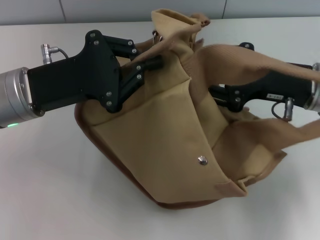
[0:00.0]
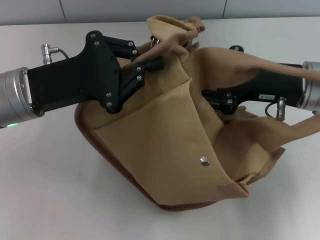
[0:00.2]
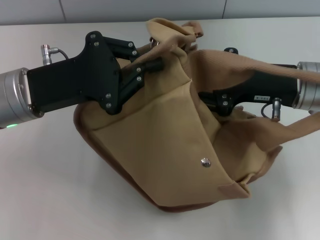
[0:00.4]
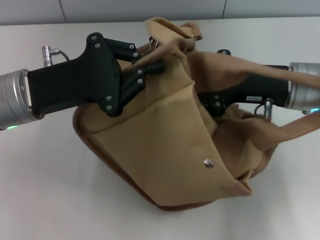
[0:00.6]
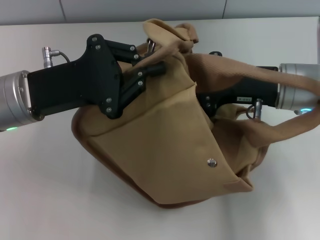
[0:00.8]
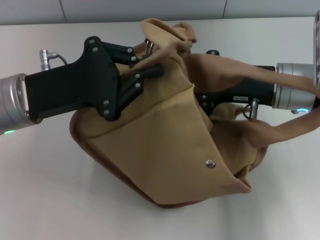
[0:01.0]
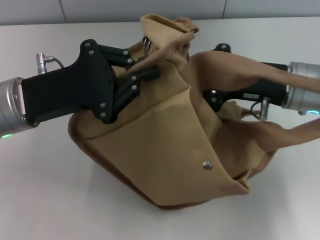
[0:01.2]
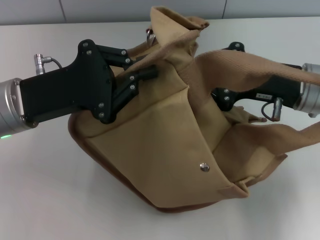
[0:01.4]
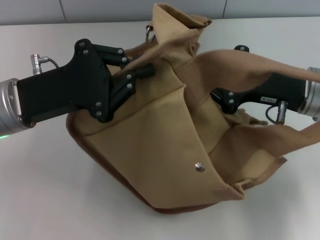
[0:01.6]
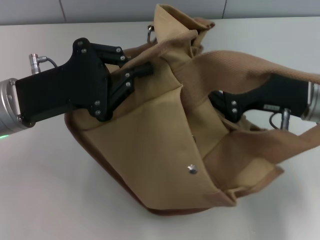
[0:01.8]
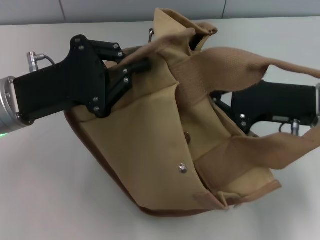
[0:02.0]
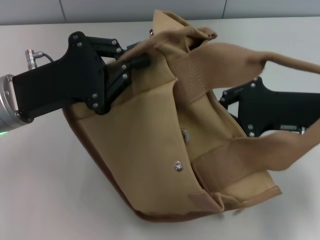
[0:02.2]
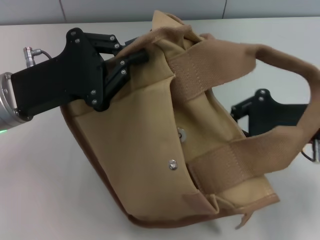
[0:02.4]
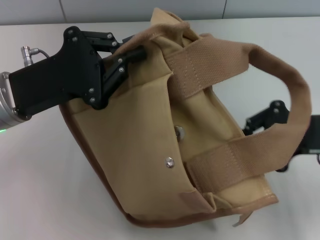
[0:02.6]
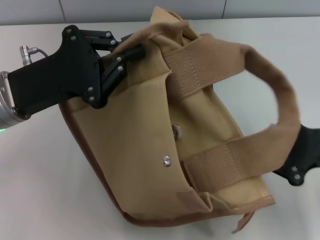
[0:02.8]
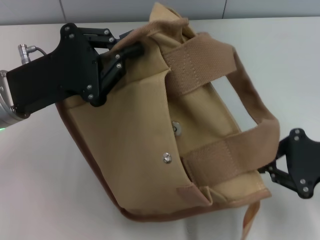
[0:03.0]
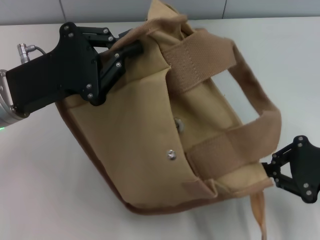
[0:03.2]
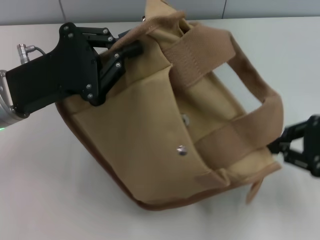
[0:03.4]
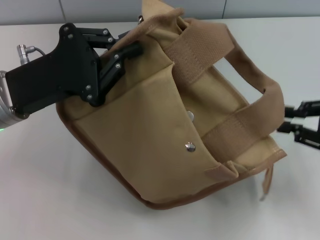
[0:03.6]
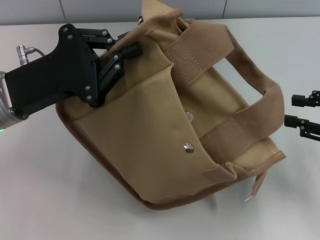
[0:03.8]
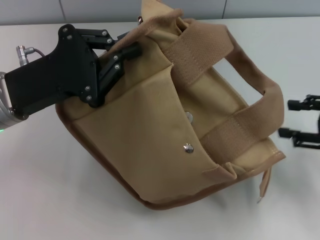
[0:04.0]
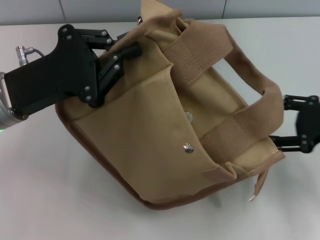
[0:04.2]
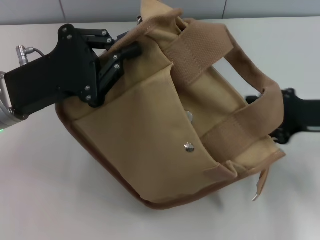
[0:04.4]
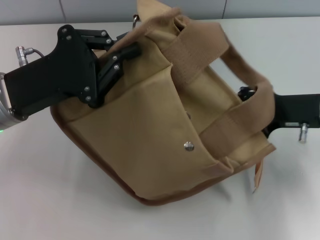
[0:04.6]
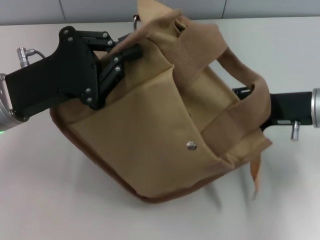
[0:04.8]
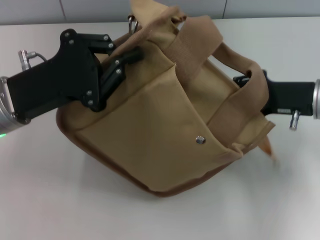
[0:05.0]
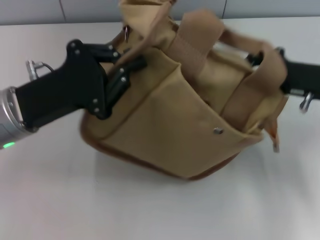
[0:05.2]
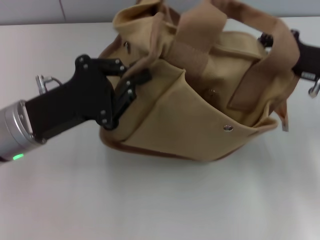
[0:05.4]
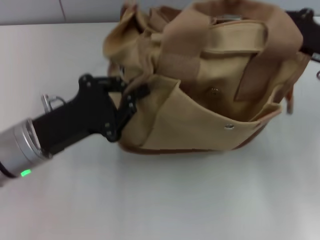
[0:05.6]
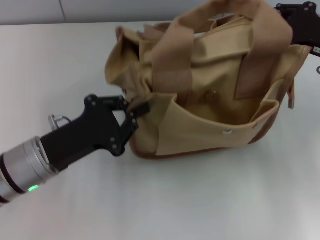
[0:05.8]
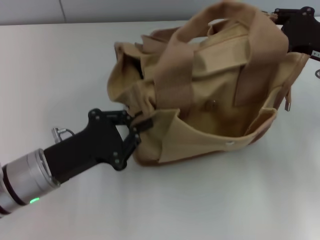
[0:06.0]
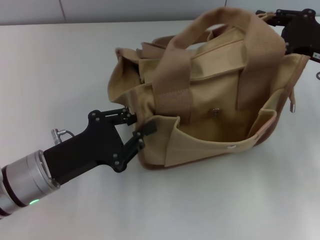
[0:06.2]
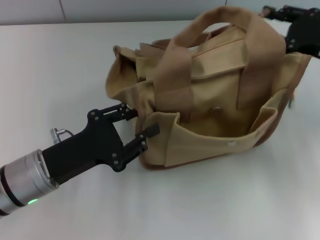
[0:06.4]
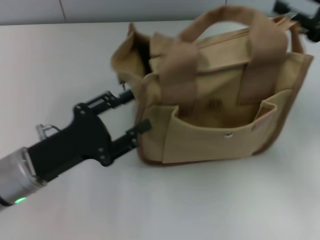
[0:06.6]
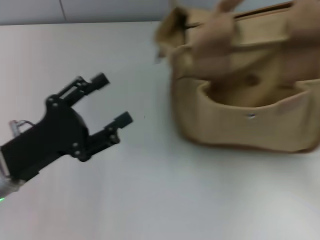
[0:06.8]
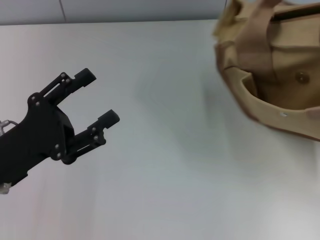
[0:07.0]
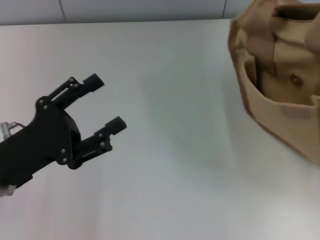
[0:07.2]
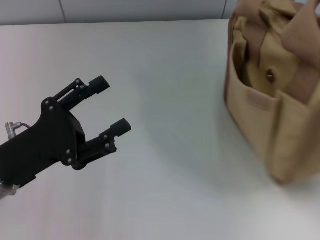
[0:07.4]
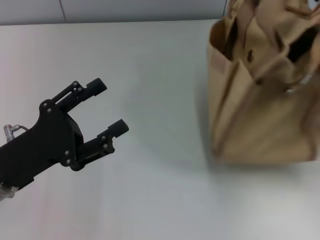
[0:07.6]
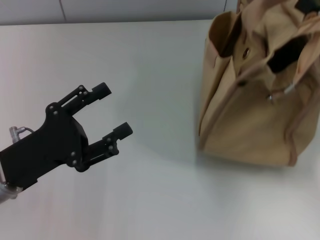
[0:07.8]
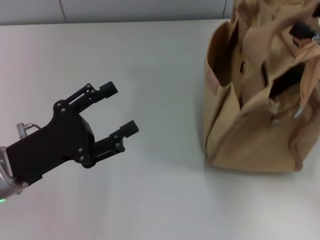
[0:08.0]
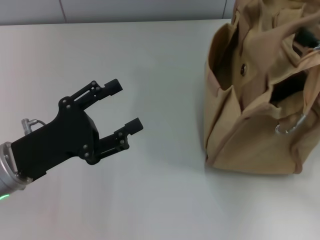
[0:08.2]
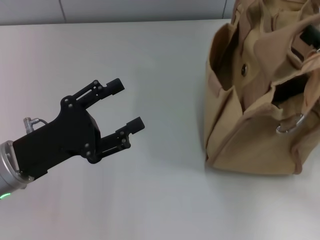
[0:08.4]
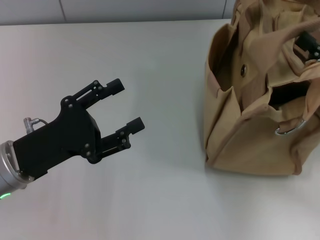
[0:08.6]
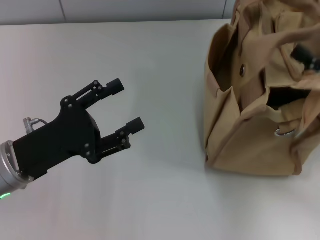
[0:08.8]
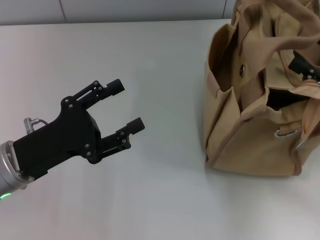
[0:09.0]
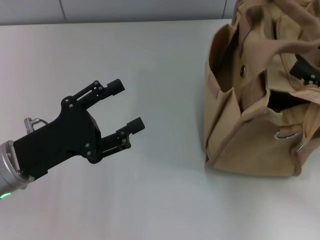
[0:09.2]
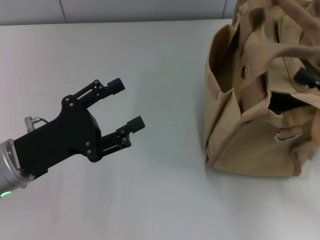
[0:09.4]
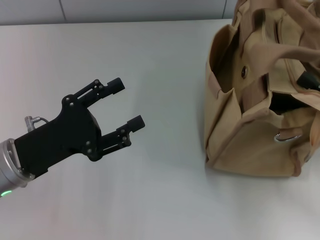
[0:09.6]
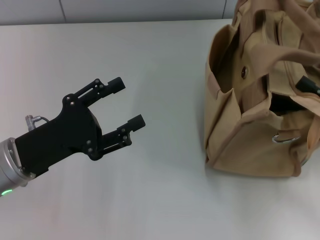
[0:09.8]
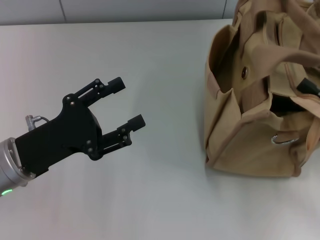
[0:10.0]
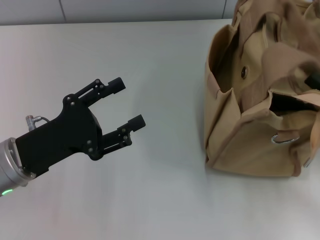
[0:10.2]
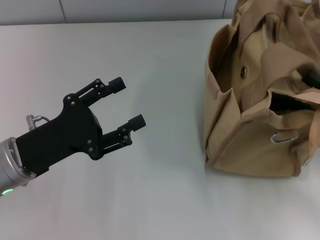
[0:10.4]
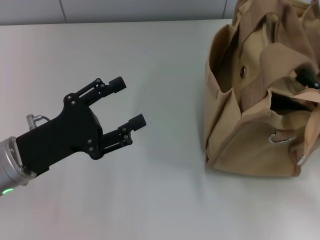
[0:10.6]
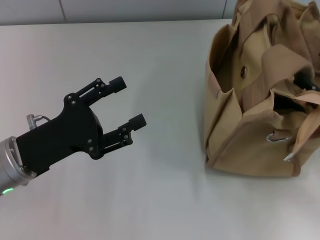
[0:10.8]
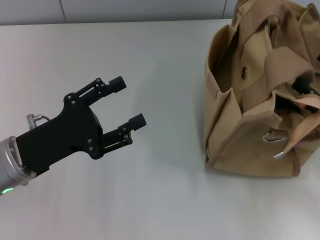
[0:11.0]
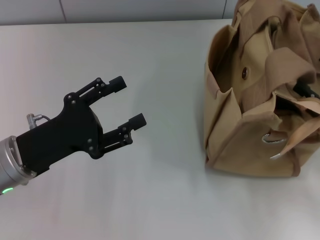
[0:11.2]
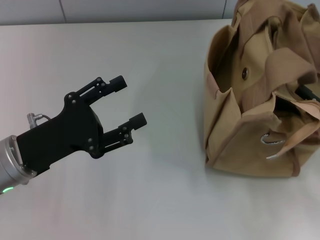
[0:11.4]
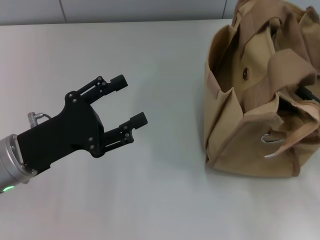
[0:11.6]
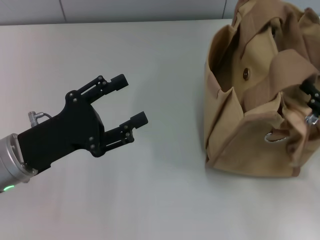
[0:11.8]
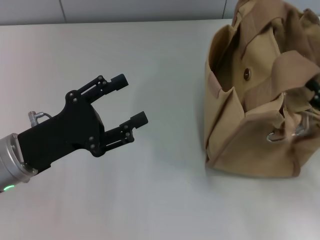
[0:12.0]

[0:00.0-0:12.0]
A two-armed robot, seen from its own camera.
Step, 0:00.0 to 0:03.6: Pull open the zipper with your right hand.
Step, 0:03.8 to 0:06.4: Grab the bag with your left hand.
0:00.0 to 0:01.6: The right gripper closes up.
0:01.6 to 0:03.0: The right gripper goes approximately 10 cm to the right and backward.
0:03.0 to 0:04.4: The right gripper heads forward, covering some 5 cm, and opens its fingers.
0:04.4 to 0:06.0: The right gripper moves some 5 cm, and closes up; the left gripper heads downward and backward, covering approximately 10 cm.
0:06.0 to 0:07.6: The right gripper opens; the left gripper opens up.
0:07.6 to 0:09.0: The right gripper ends up roughly 5 cm from where it was.
0:09.0 to 0:10.4: There are only small adjustments of the grippers.
0:10.4 to 0:12.0: The grippers make only small movements.

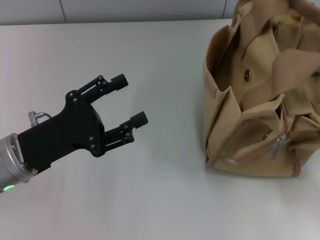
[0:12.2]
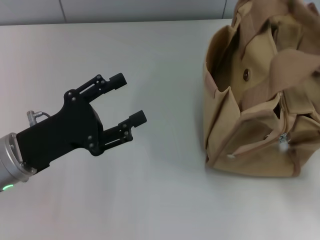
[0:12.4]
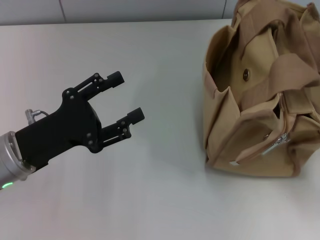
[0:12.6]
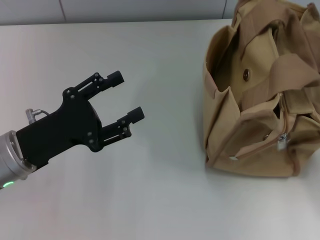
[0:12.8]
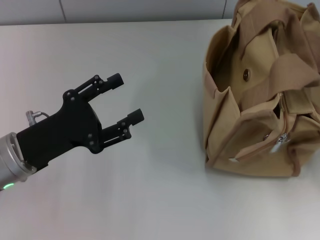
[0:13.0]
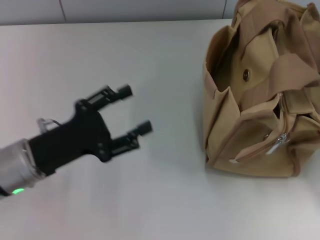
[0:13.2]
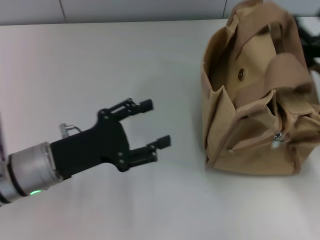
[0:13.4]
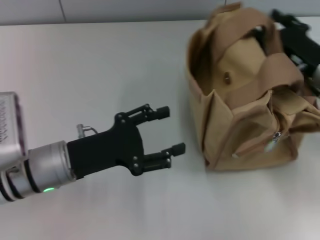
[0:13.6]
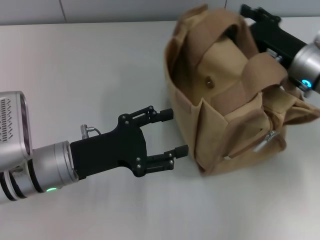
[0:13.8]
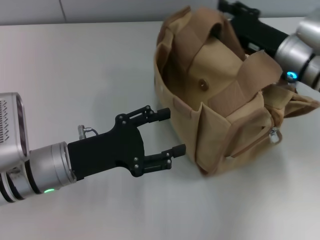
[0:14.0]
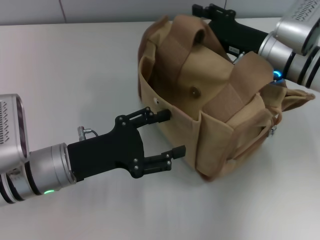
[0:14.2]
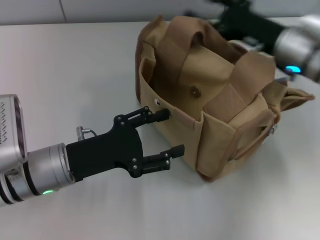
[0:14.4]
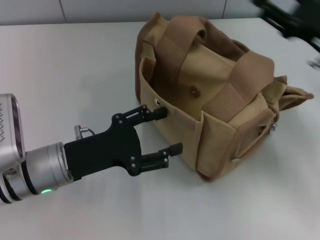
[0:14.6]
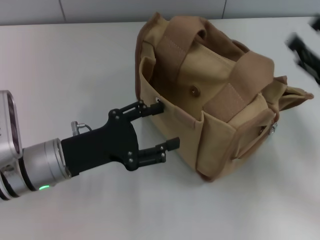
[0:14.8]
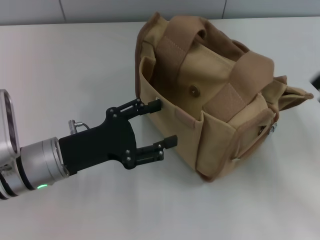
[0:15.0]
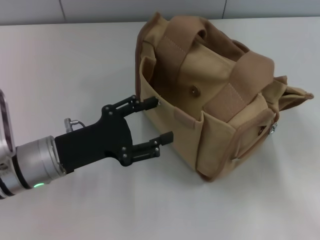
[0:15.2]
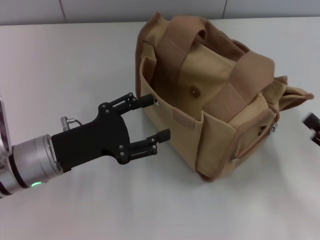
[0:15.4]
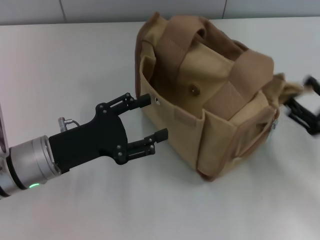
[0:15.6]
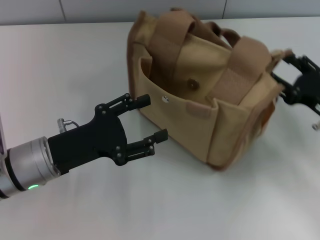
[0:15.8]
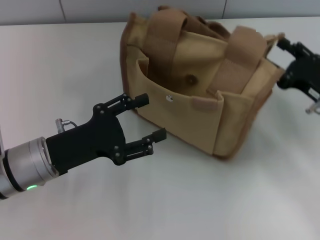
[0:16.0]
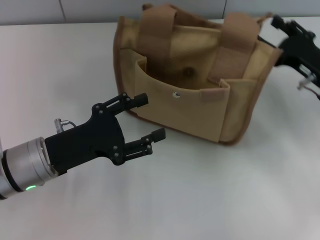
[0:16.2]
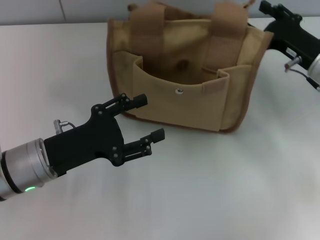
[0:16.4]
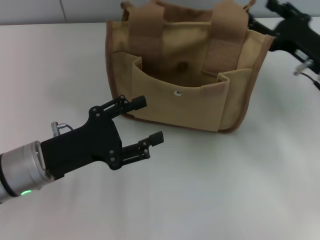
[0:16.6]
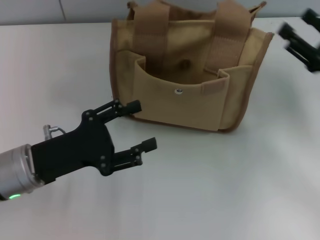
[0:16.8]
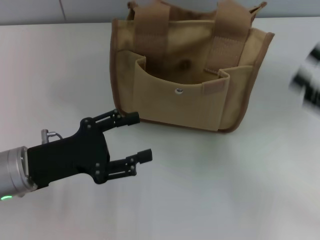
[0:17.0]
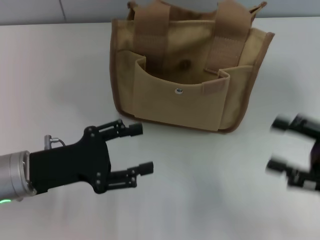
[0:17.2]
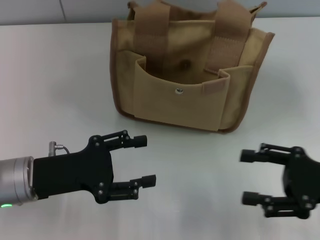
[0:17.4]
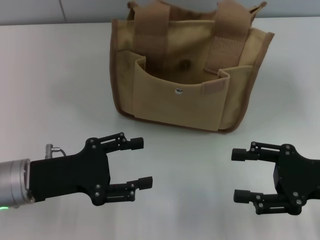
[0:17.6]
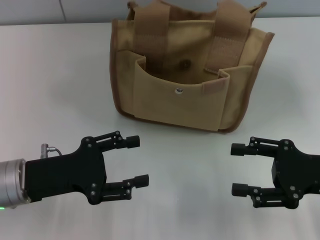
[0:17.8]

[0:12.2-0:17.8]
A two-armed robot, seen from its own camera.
0:12.2 to 0:13.6: The right gripper moves forward and to the left, about 15 cm.
0:13.6 to 0:15.0: The right gripper heads backward and to the right, covering approximately 20 cm.
0:15.0 to 0:16.4: The right gripper travels forward and to the left by some 20 cm.
0:16.4 to 0:17.8: The right gripper travels backward by some 15 cm.
